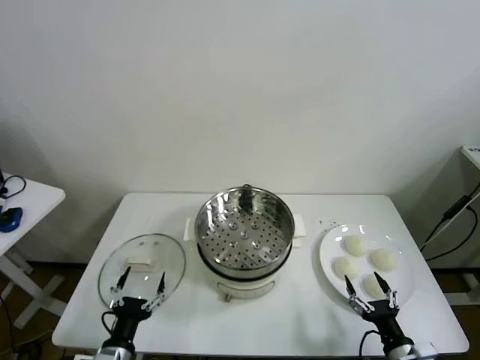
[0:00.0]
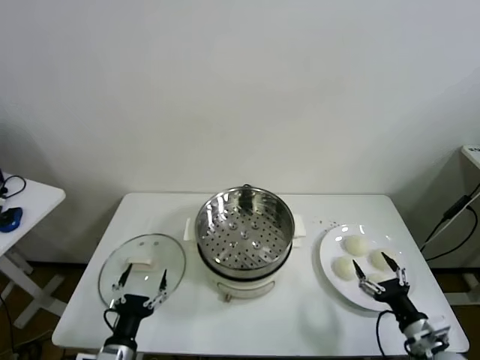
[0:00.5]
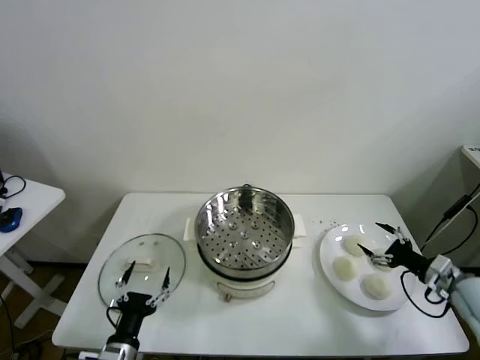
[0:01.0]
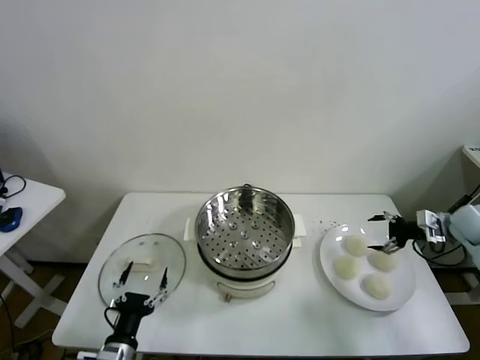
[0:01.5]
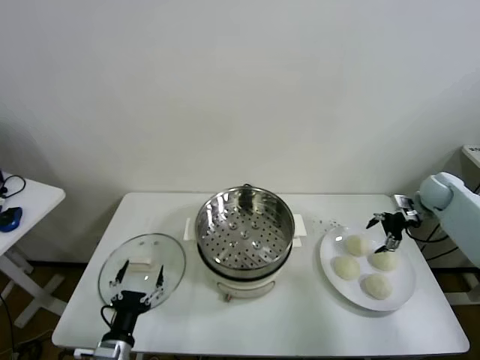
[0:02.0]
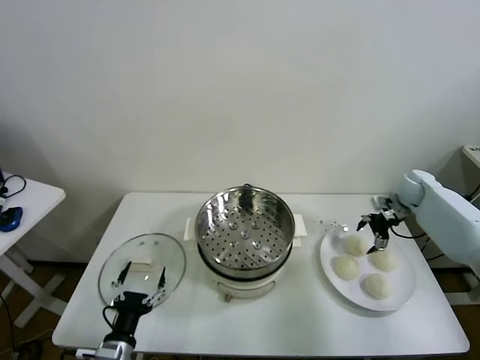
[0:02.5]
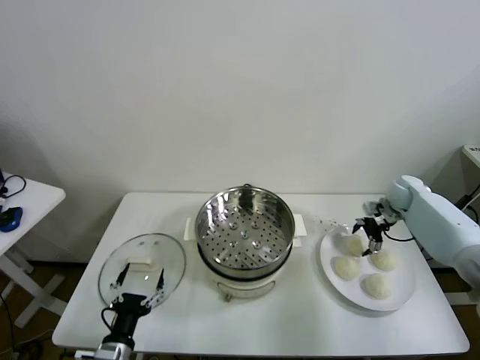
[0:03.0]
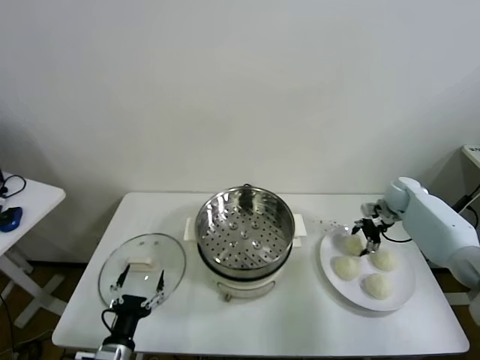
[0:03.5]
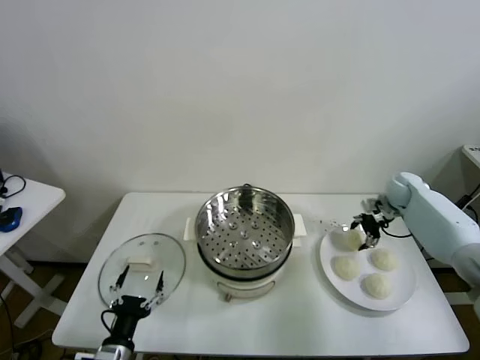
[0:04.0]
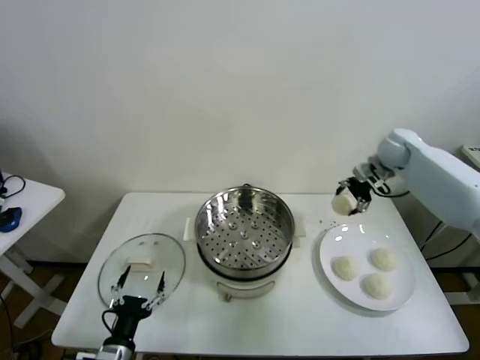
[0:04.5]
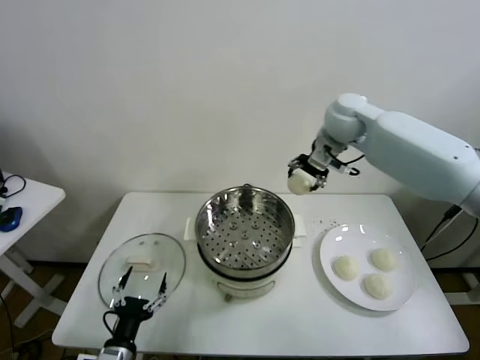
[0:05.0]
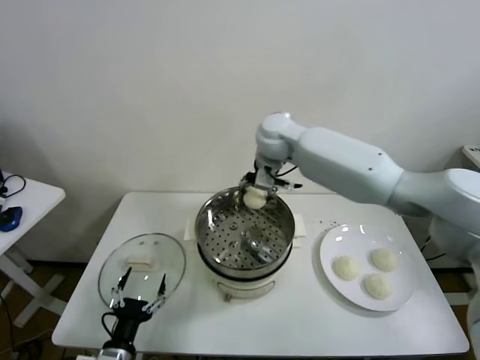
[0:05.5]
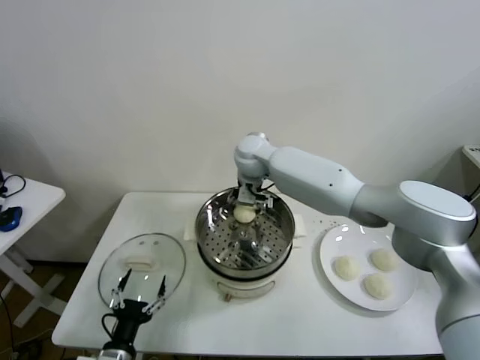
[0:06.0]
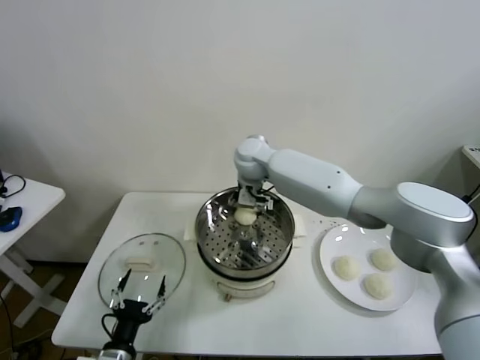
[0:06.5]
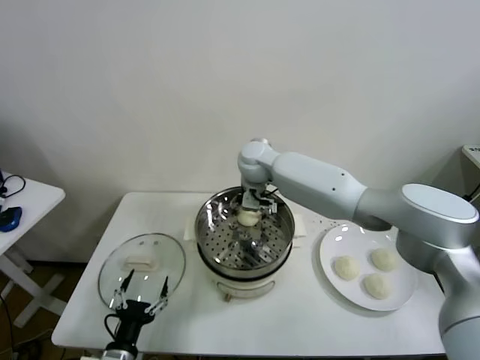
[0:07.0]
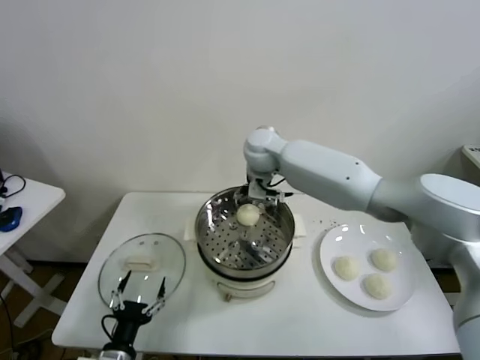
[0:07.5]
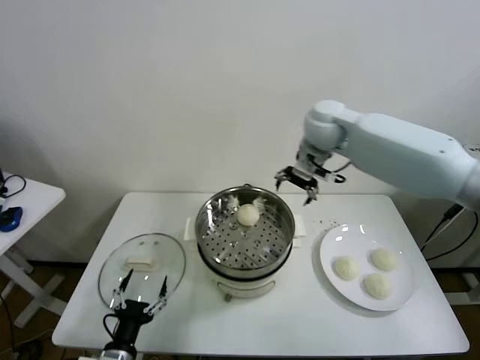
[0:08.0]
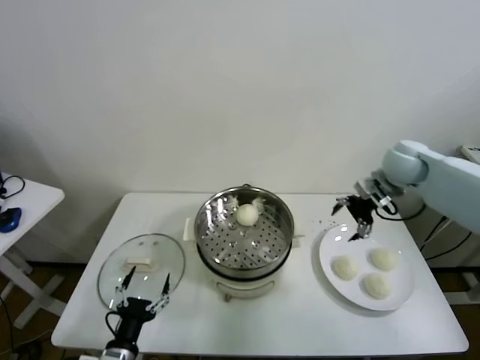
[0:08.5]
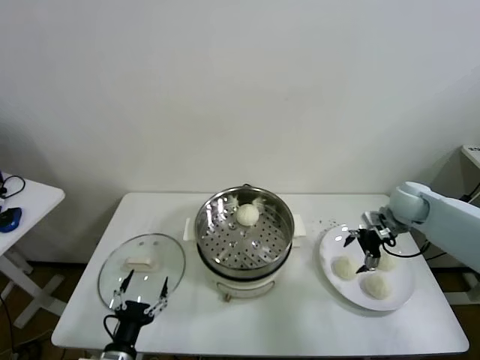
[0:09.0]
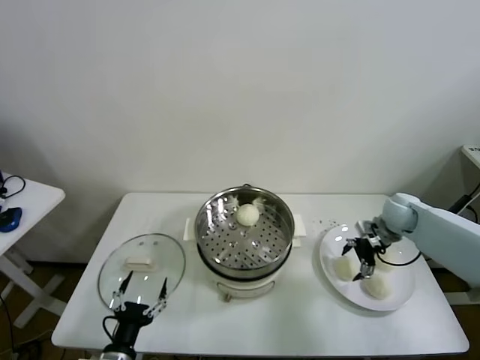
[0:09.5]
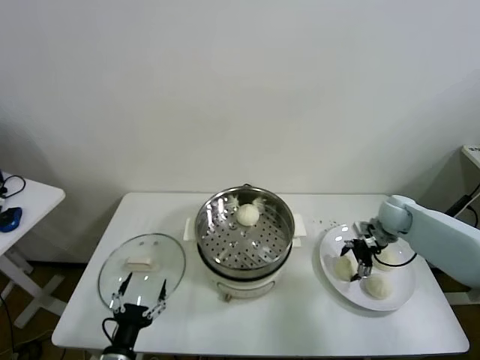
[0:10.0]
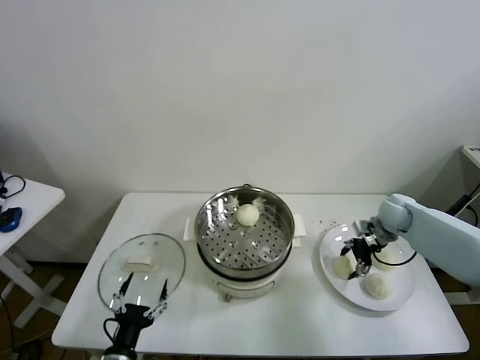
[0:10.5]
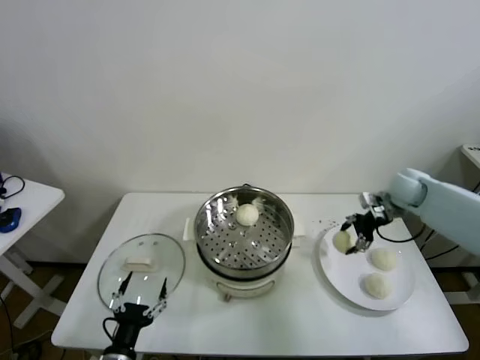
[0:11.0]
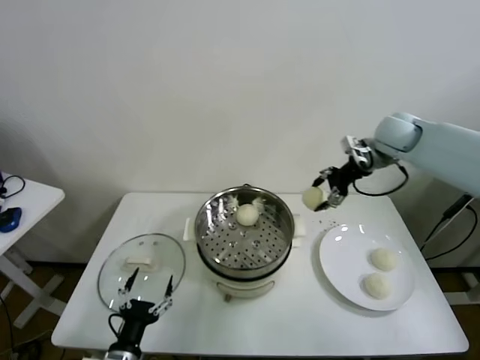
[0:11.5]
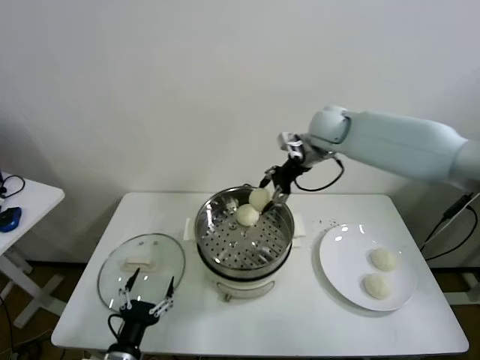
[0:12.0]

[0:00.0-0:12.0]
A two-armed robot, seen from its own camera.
Task of the whole recording: take steamed baozi put them in steamer.
Step, 0.0 to 3.5 s: Grasp the baozi in the plate with right gripper.
Step, 4.0 to 7.0 s: Place the baozi on the steamer with right gripper.
Step, 7.5 to 10.0 s: Grasp the baozi in the plate with right gripper.
2.0 to 4.0 s: The right gripper travels to the left by roughly 5 cm, and closes its fingers.
4.0 to 6.0 s: The right gripper goes approximately 40 cm to the left.
6.0 to 8.0 s: The right gripper heads to the right and upward, covering roughly 20 cm, and opens.
8.0 to 10.0 s: The right gripper moves downward and to the right, approximately 30 cm.
10.0 to 12.0 s: The right gripper moves to the left and upward, some 30 cm, and closes its fingers.

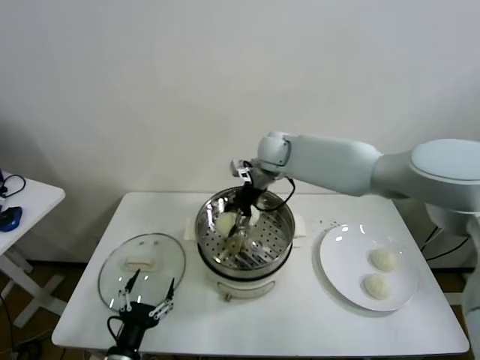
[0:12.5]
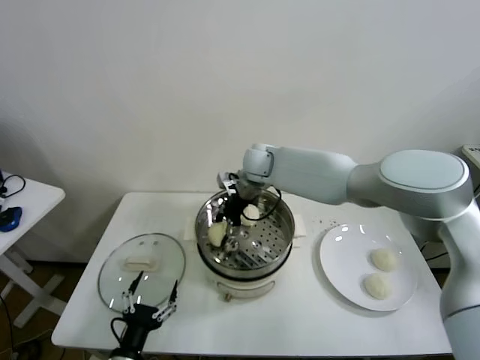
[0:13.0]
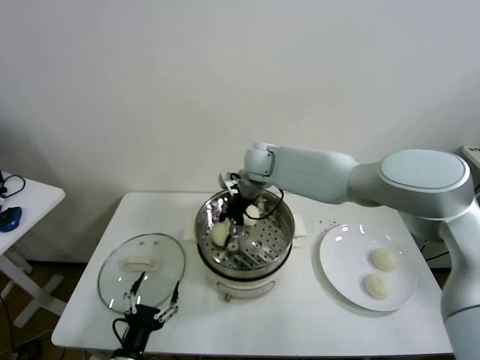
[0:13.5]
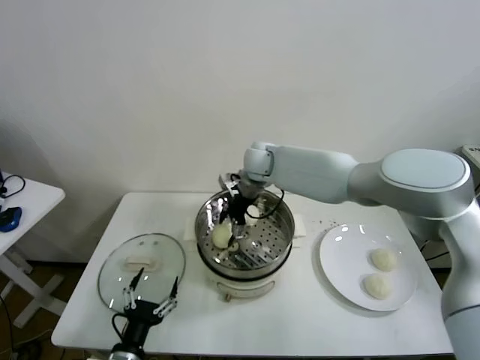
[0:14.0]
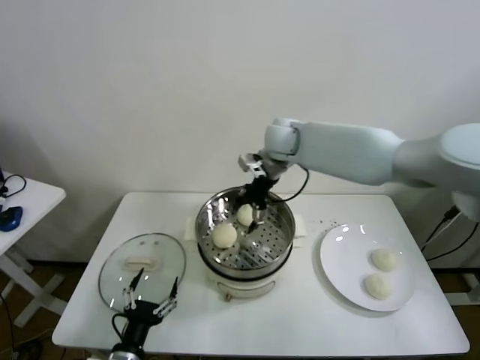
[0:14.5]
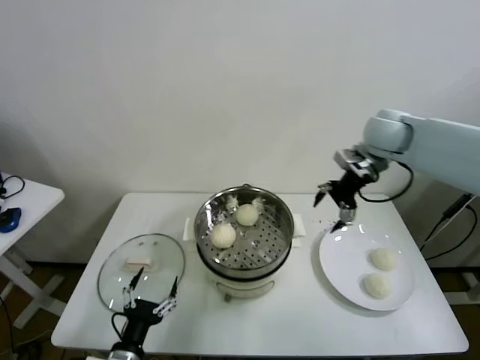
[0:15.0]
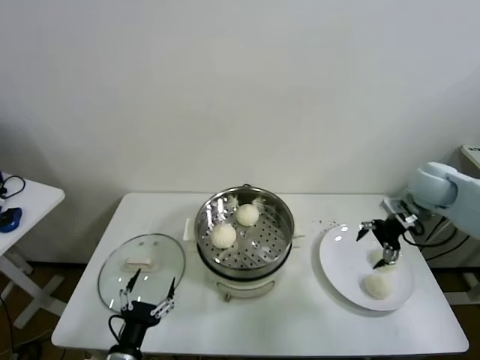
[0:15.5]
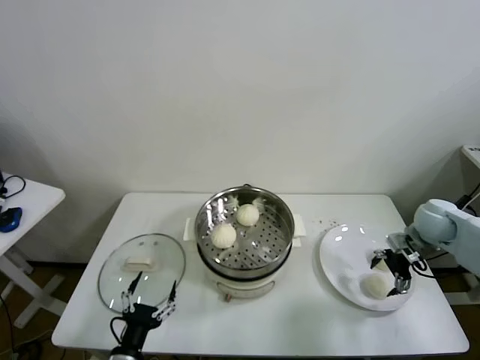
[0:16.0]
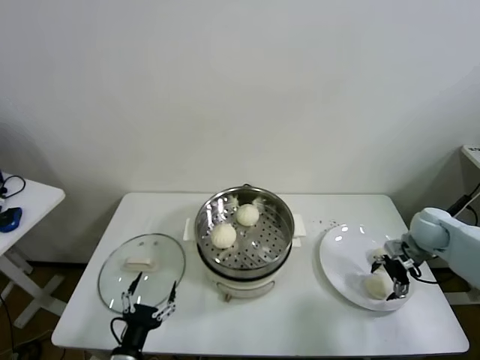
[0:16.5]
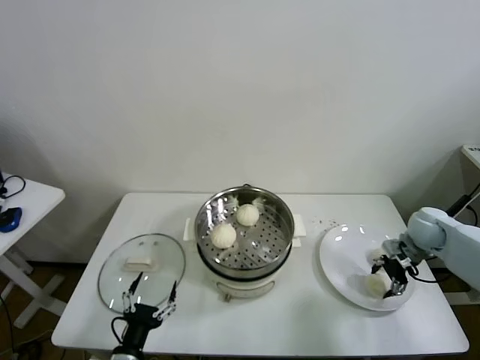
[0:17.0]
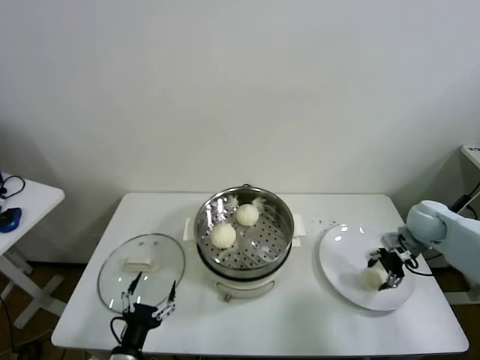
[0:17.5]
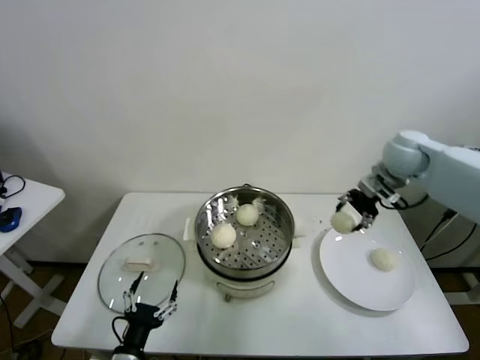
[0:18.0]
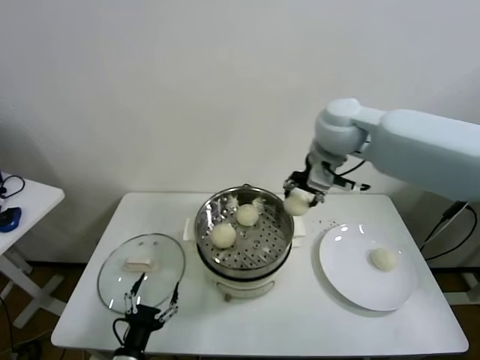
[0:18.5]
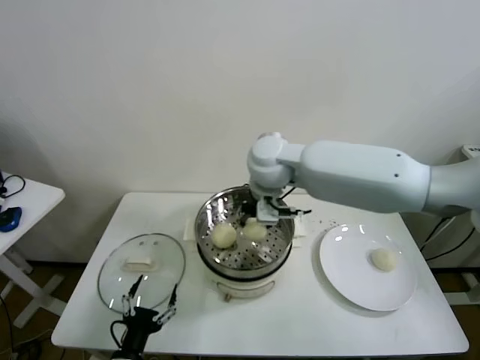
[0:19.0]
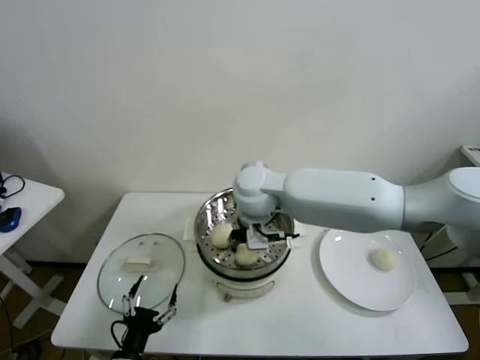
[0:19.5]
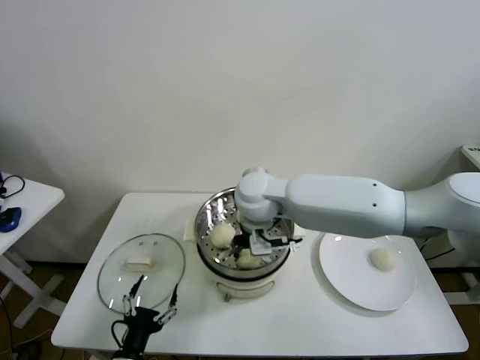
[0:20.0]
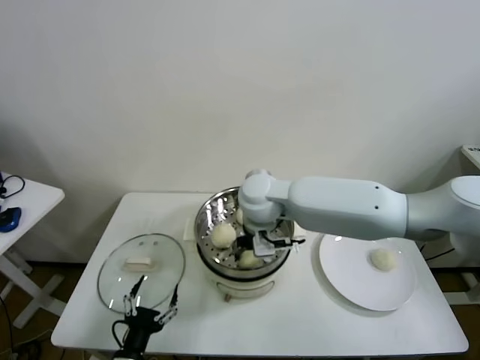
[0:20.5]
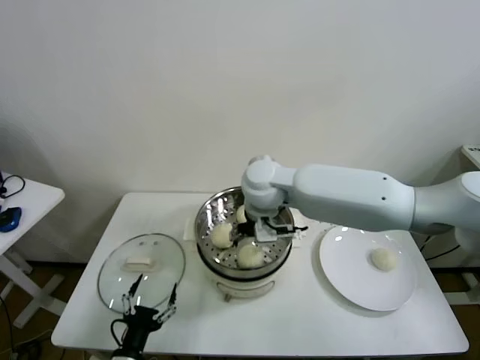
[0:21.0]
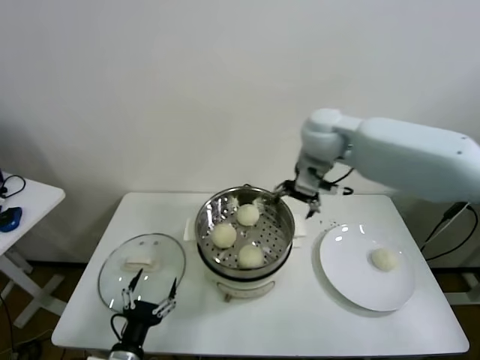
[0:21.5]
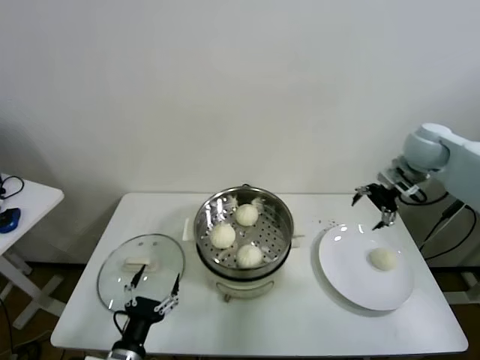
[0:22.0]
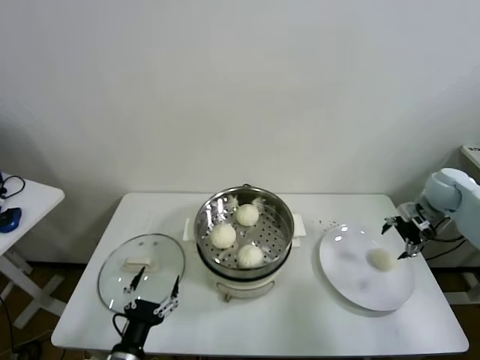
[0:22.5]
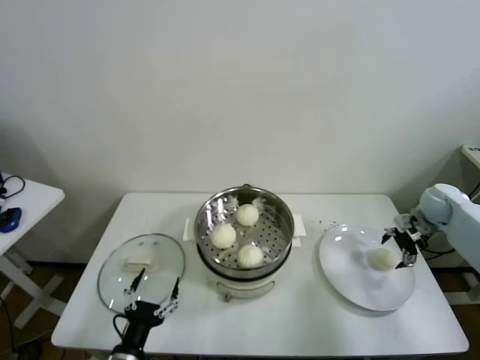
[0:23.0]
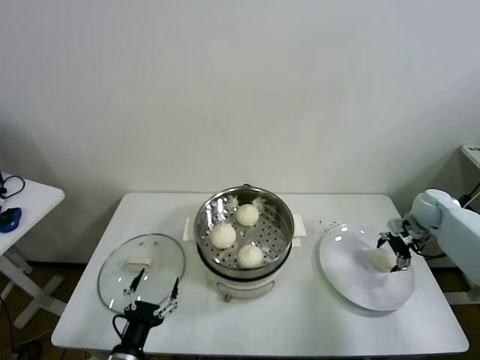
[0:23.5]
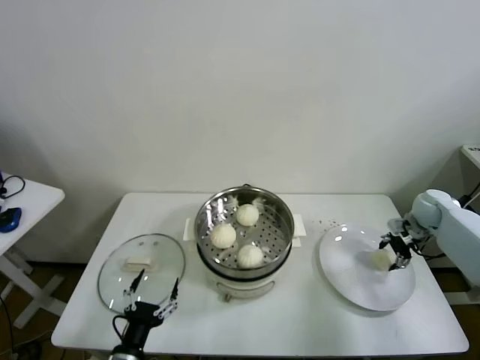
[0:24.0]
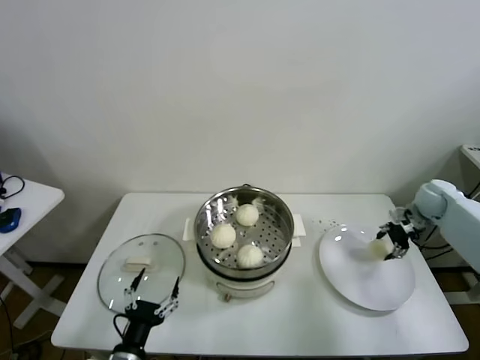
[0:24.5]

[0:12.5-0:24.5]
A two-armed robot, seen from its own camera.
Task of the whole recording: take steamed baozi put them in steamer.
Step, 14.5 to 17.0 s: Grasp the baozi in the plate with right gripper.
Step, 17.5 to 20.5 s: Place the baozi on the steamer with right gripper.
Step, 21.0 to 24.0 s: Grasp the baozi in the plate with right gripper.
12.5 to 14.5 s: The right gripper goes some 5 cm upward, and opens up.
14.5 to 16.5 s: The right gripper goes about 40 cm to the right and downward.
16.5 to 18.5 s: The right gripper shifts roughly 40 cm to the left and upward, and closes its fingers.
18.5 to 20.5 s: The right gripper travels downward and to the left by roughly 20 cm, and opens.
20.5 to 22.5 s: The right gripper heads to the right, covering roughly 50 cm.
22.5 to 24.5 s: The right gripper closes.

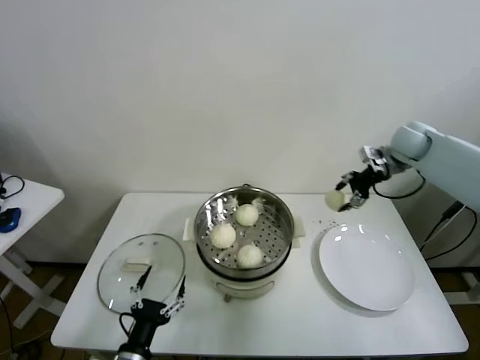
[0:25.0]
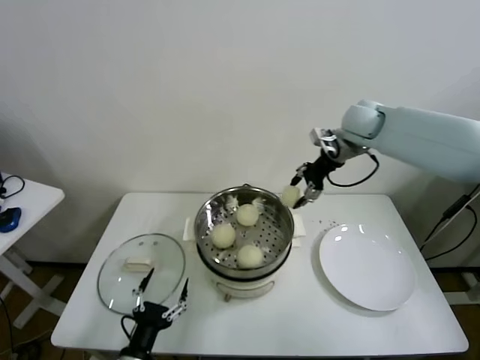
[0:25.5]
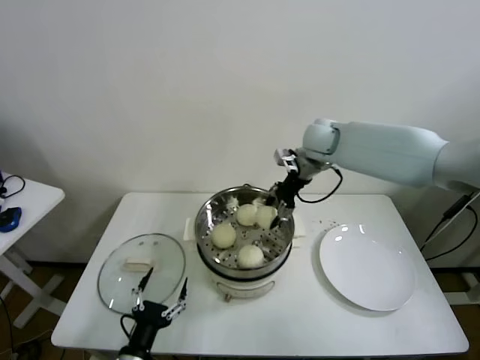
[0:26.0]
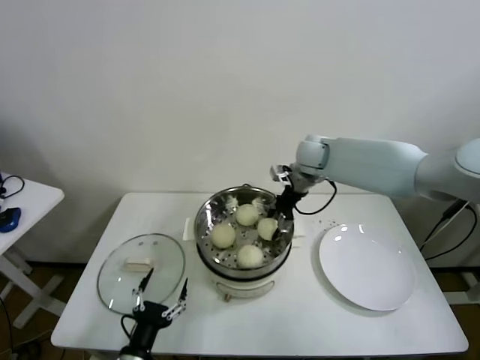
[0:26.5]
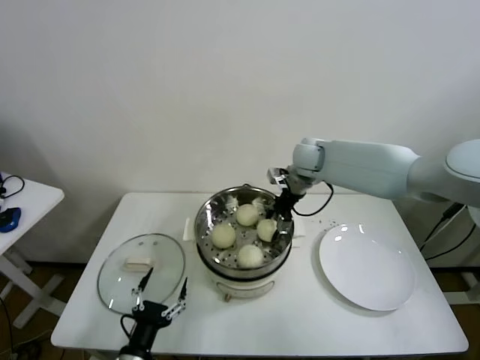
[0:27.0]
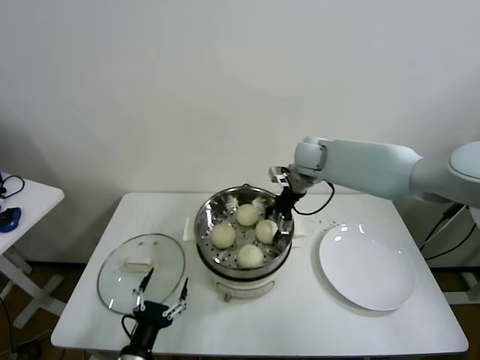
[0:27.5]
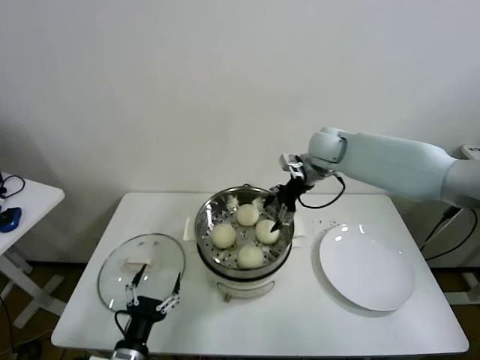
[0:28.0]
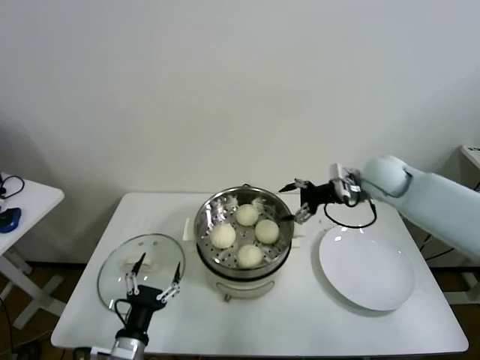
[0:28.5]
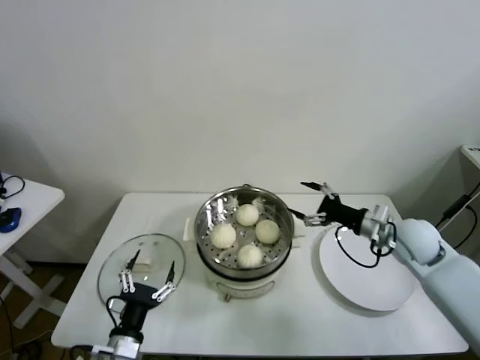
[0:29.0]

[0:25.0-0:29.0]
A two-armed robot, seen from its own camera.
Task of the whole recording: take steamed baozi put them in steamer.
Step, 25.0 to 27.5 s: Place the baozi on the steamer with right gripper.
25.0 to 27.0 s: The right gripper is displaced to the left by about 25 cm.
27.0 to 29.0 s: The right gripper travels to the right, backward and downward by approximately 30 cm, and opens up.
